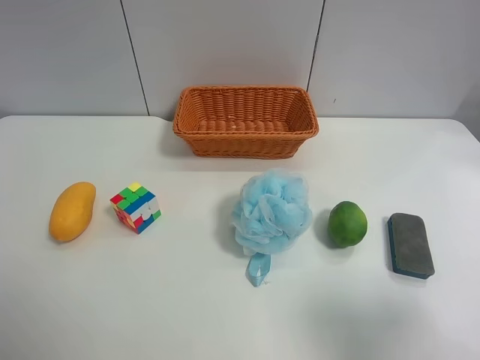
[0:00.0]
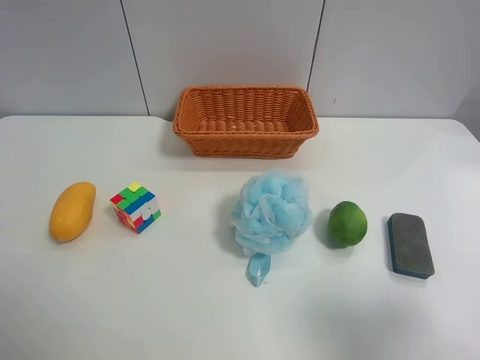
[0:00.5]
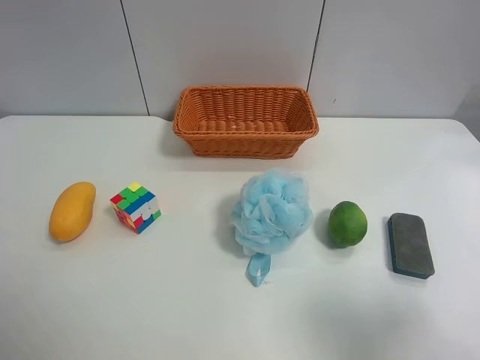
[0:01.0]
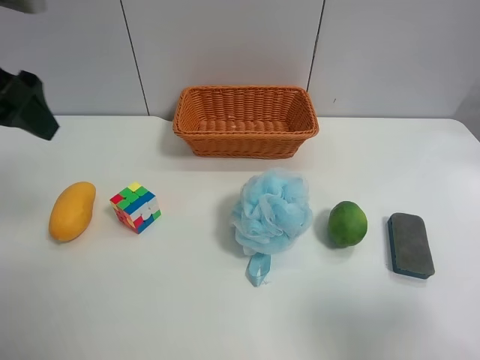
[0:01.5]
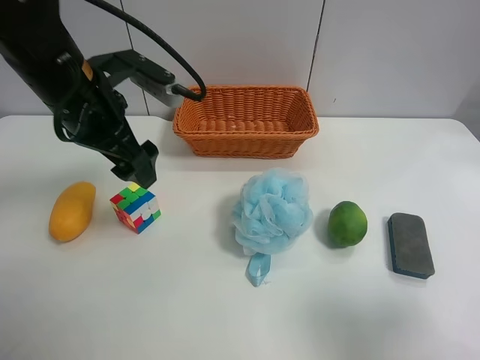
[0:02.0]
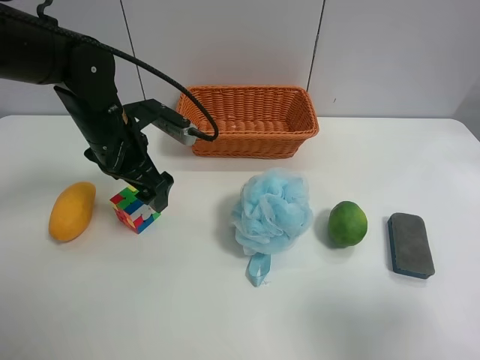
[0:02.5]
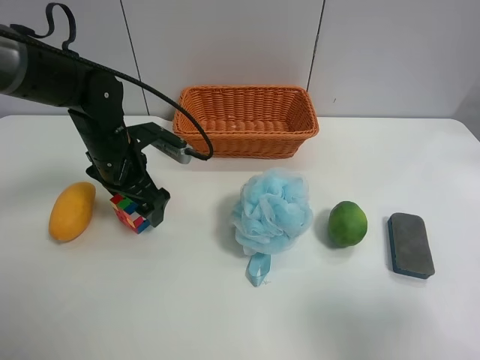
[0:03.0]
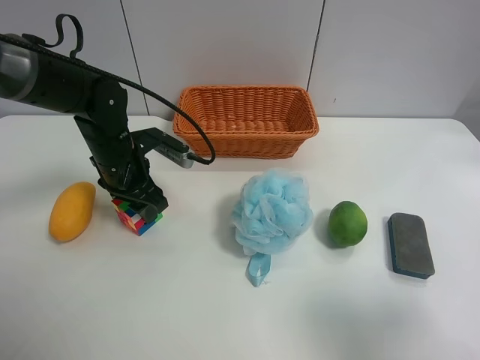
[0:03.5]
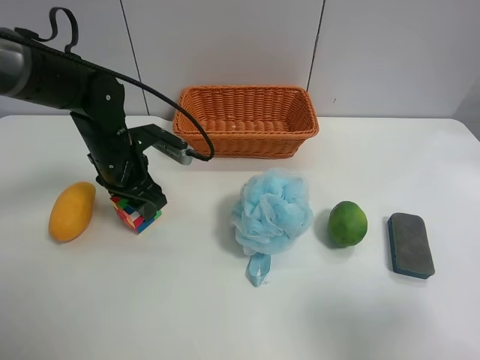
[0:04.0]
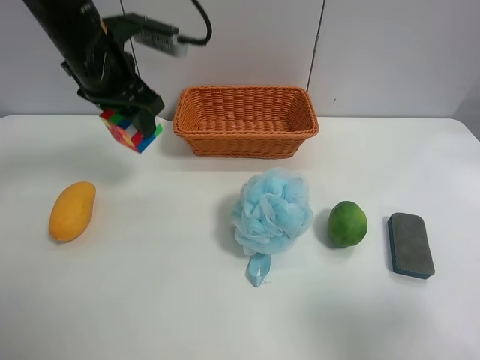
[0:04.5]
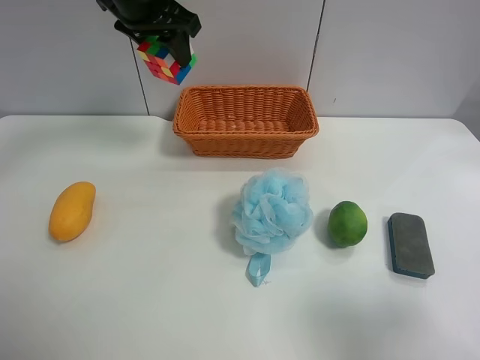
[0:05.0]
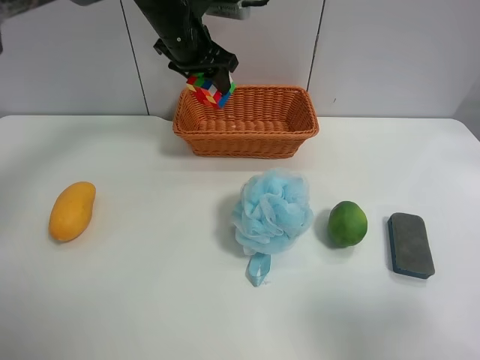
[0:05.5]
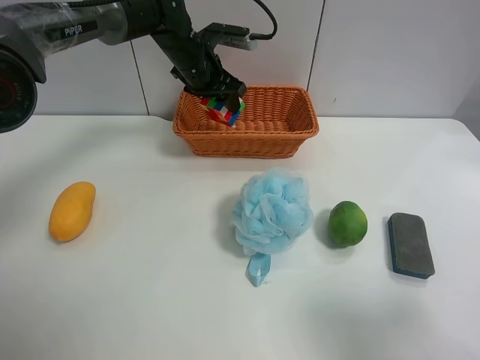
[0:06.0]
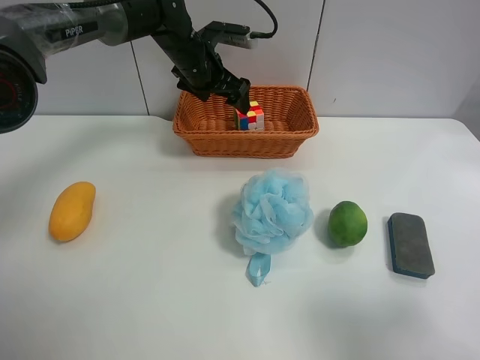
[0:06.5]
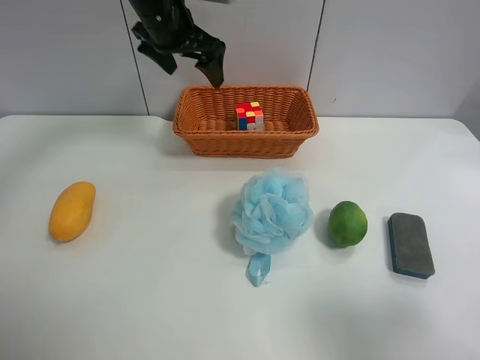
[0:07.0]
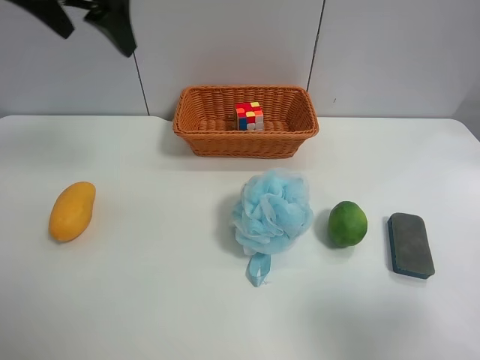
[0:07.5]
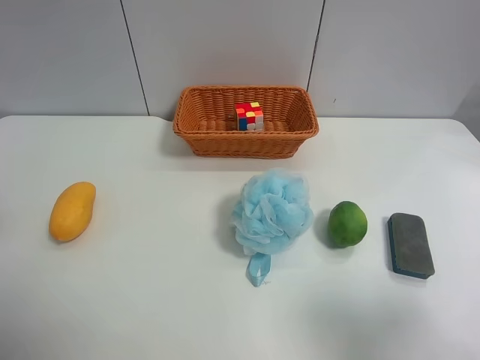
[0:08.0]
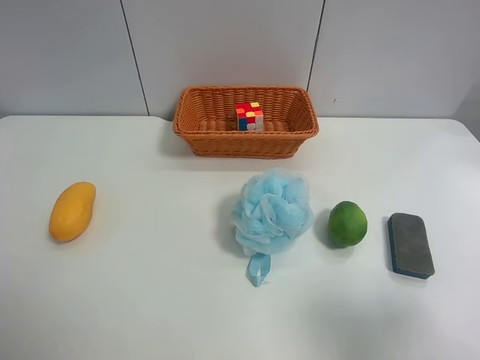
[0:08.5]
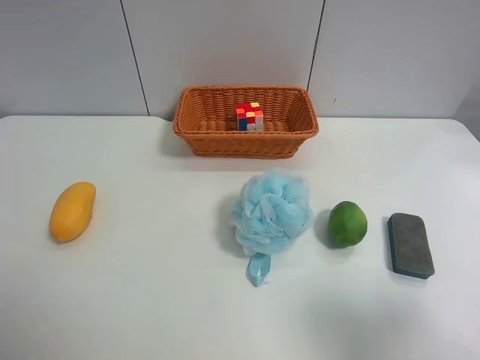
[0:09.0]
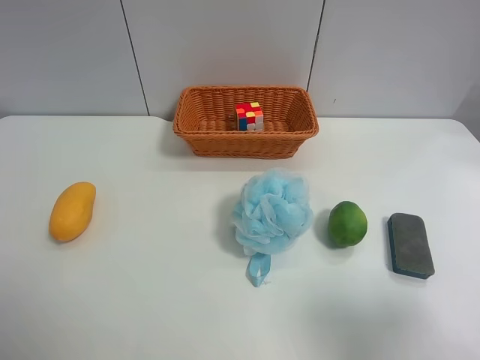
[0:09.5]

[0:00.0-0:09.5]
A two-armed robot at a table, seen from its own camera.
Task of the whole recording: use the left gripper to grab items from the table and place them in the basket.
Step, 0:00.0 to 0:03.5: Grasp the Rubik's Cube with the left gripper.
Step, 0:04.0 to 0:06.0: Grasp the apple rubber puff with the left gripper.
0:00.0 to 0:02.0: The left gripper goes roughly 35 cm forward and to the right.
0:02.0 to 0:04.0: The left gripper shifts some 10 cm downward, and closes up.
0:04.0 to 0:05.5: The left gripper shifts some 20 cm forward, upward and to the right.
0:05.5 to 0:07.5: The left gripper moves backward, upward and to the left, about 25 cm, and opens its fingers.
0:07.5 to 0:09.5: The left gripper heads backward, covering roughly 35 cm.
